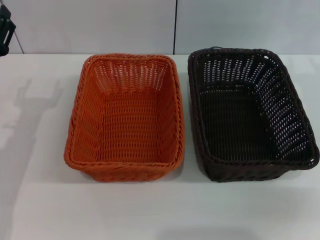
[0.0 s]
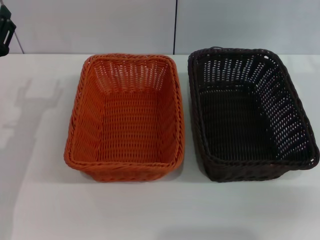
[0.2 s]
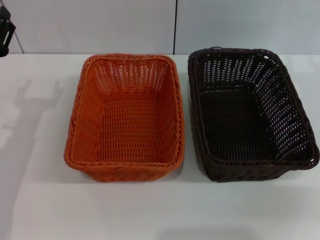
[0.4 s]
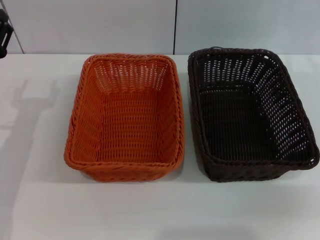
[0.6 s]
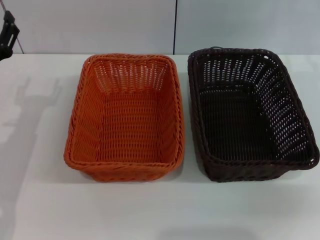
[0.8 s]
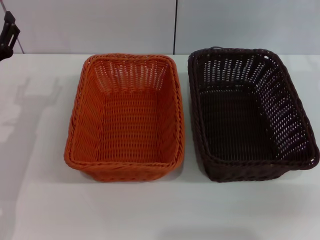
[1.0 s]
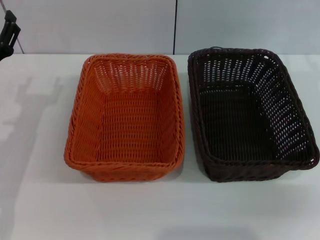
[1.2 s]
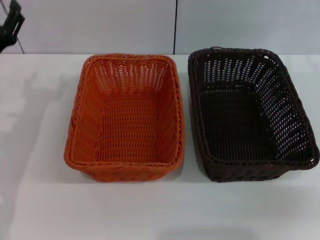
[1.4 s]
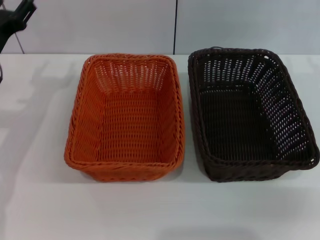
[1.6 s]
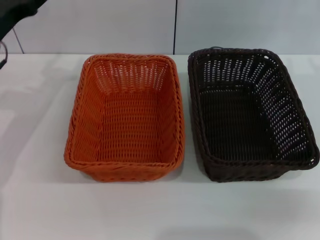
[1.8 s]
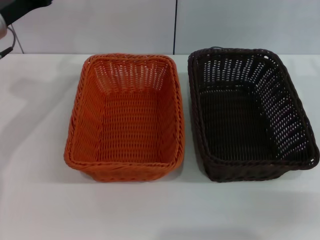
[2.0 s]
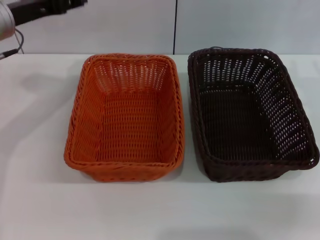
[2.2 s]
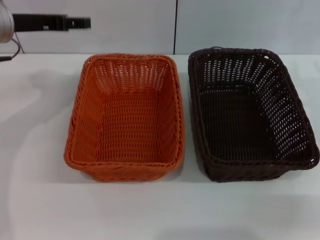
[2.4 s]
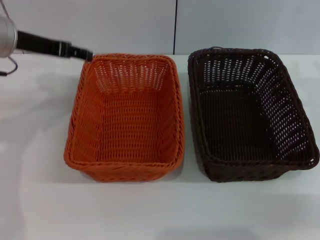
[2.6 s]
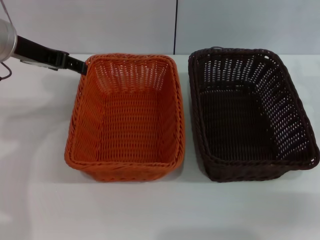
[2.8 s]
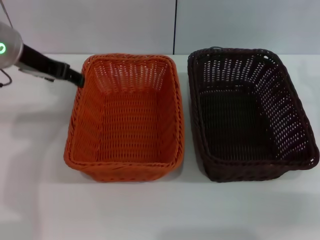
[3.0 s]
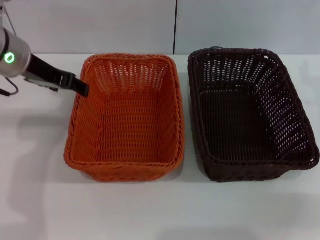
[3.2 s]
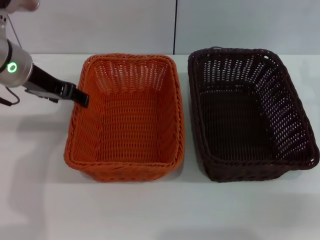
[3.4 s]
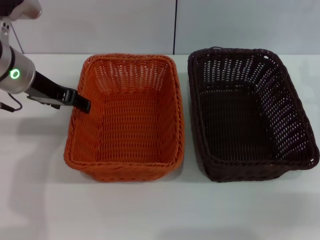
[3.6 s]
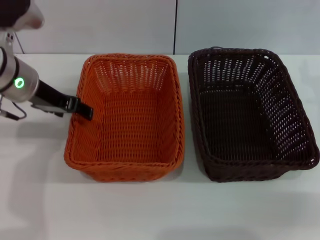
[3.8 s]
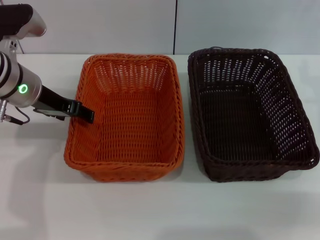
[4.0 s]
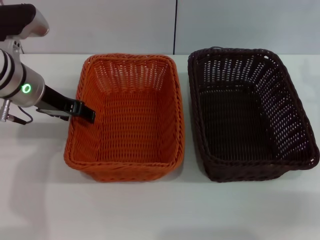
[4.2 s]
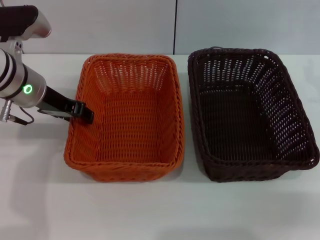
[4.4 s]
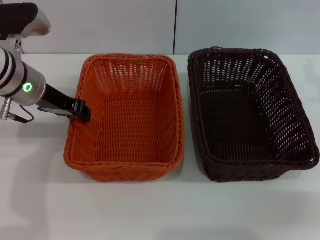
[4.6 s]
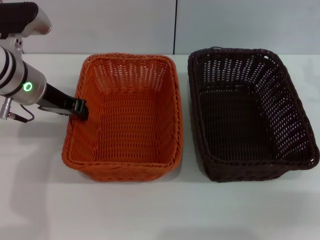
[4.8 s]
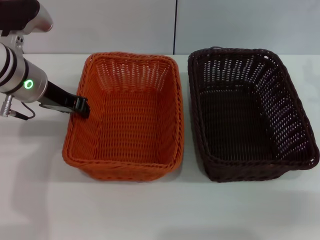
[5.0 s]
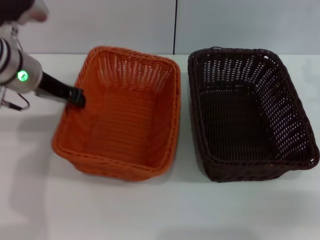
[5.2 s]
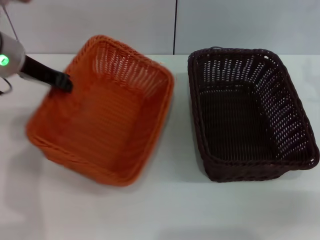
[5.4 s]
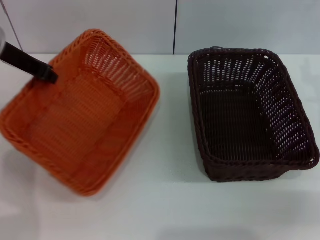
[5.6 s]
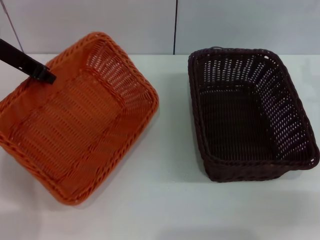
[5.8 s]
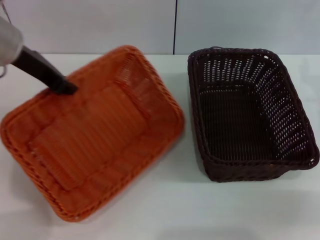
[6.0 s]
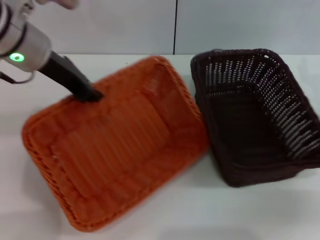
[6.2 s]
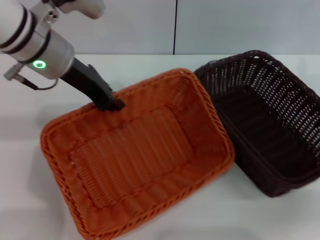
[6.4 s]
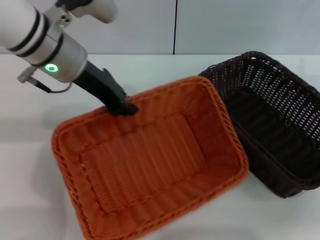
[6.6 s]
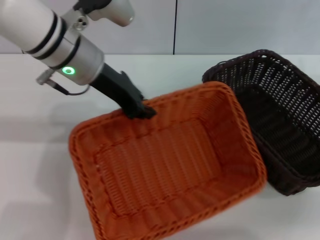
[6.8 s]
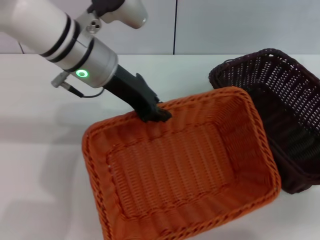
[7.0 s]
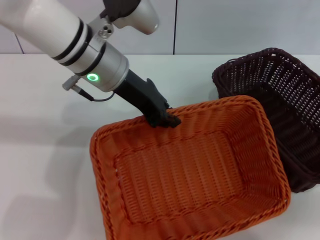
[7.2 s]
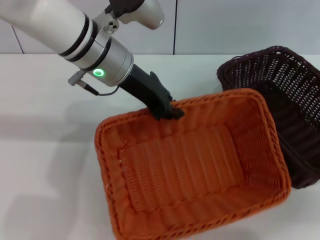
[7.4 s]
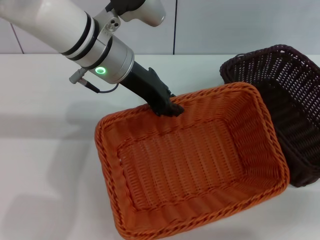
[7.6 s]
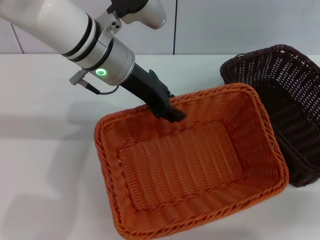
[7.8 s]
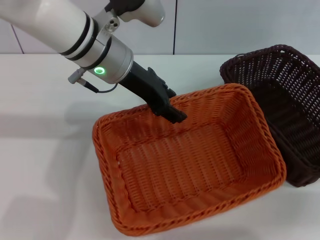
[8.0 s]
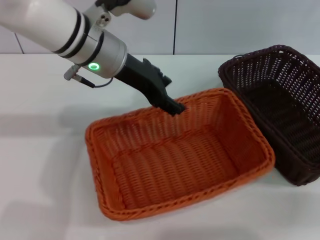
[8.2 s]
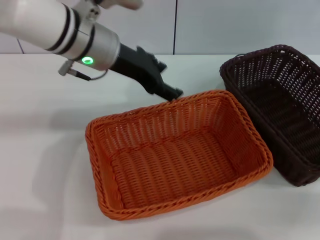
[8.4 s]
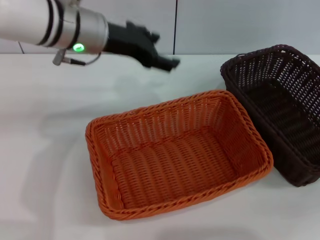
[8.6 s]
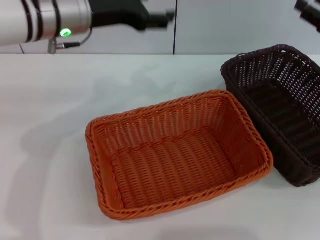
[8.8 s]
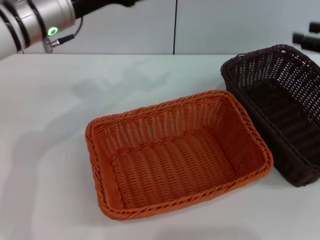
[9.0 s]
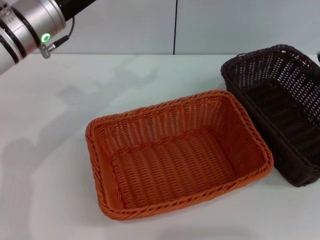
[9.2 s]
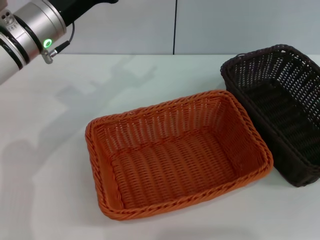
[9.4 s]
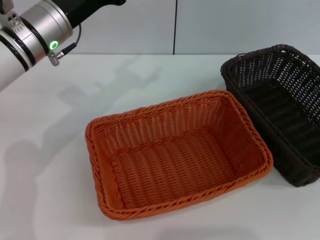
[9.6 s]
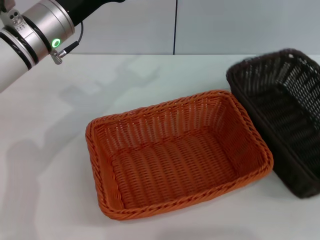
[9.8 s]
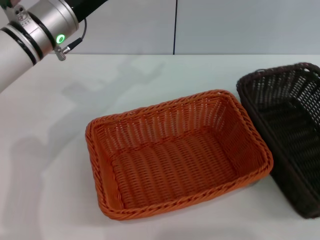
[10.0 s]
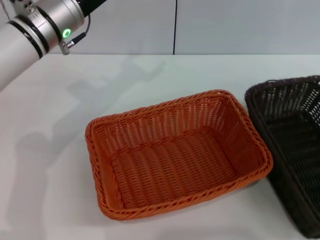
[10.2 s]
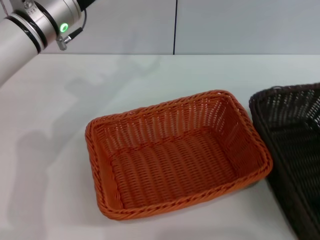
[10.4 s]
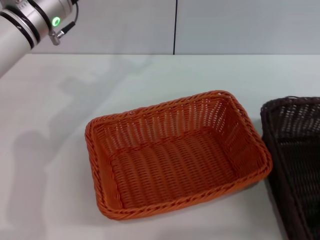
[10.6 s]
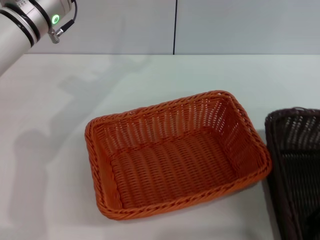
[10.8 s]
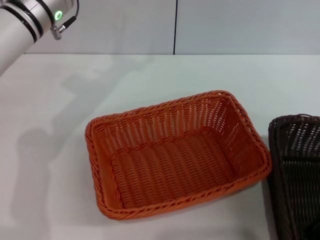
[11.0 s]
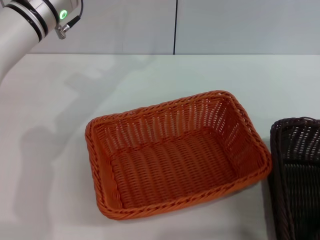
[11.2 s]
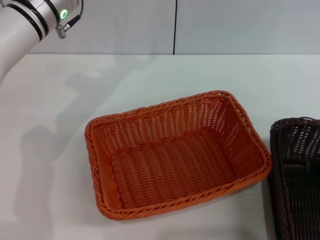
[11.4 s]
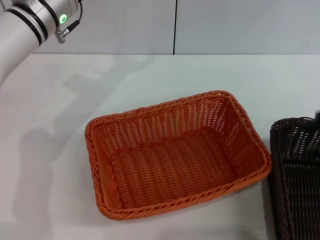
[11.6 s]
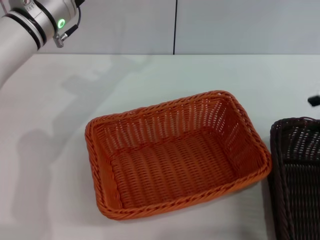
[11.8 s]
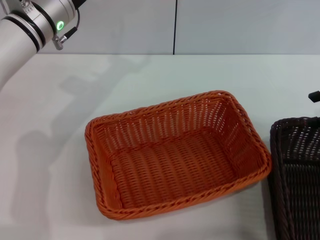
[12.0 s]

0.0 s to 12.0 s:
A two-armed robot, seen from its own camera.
Step, 0.0 to 5.4 s: Pick up the light basket with the left gripper.
Step, 5.8 to 8.2 s: Place the light basket in the center of view with the left gripper.
0.0 to 1.6 s: The left gripper heads forward, covering some 5 cm.
1.6 to 3.0 s: The left gripper moves upward and to the right, some 10 cm.
3.0 to 4.4 s: The left gripper goes approximately 5 cm downward.
4.4 to 6.0 s: The left gripper goes some 10 cm upward, and closes its fingers.
6.0 to 7.6 s: The left gripper goes approximately 15 cm to the right.
7.6 to 9.0 s: The right gripper moves upward and to the right, approximately 10 cm. The left gripper travels to the left by about 10 cm, and opens up.
9.0 to 10.4 s: The right gripper heads backward, covering about 10 cm.
10.4 to 12.0 s: The right gripper shifts some 5 cm forward.

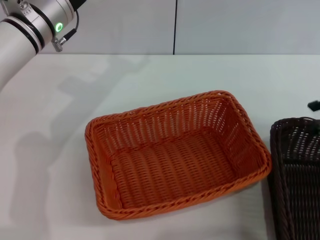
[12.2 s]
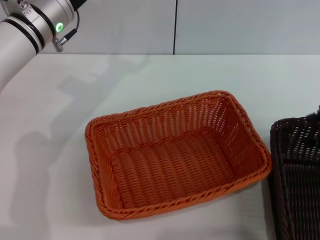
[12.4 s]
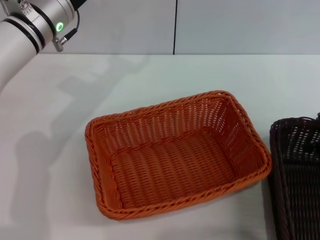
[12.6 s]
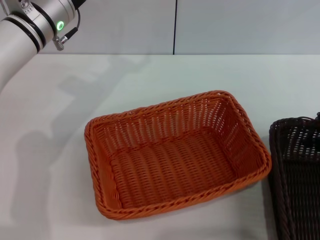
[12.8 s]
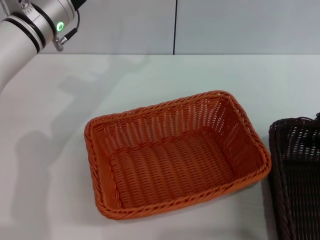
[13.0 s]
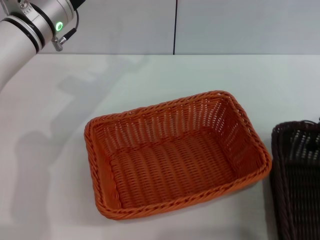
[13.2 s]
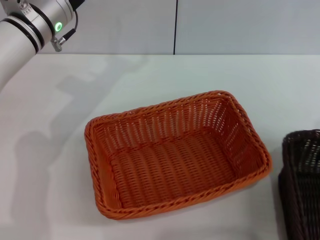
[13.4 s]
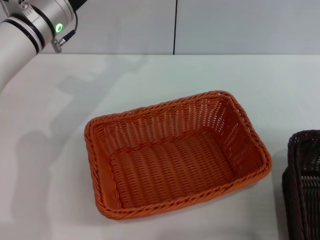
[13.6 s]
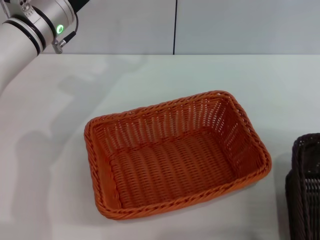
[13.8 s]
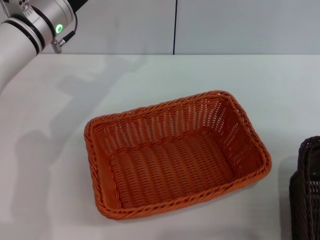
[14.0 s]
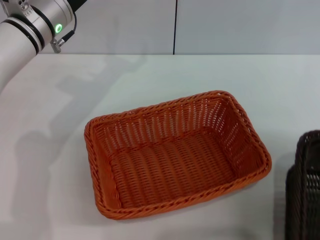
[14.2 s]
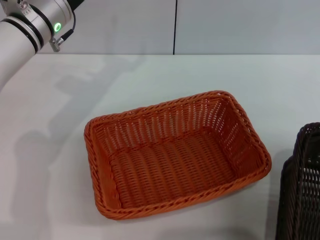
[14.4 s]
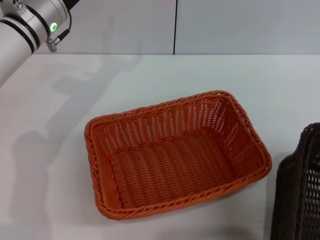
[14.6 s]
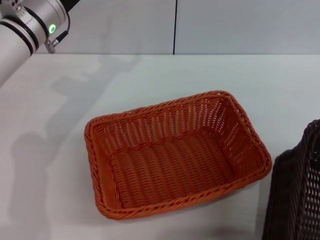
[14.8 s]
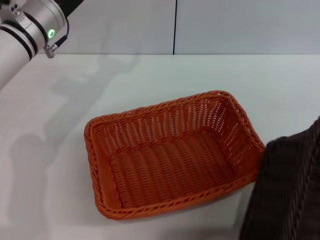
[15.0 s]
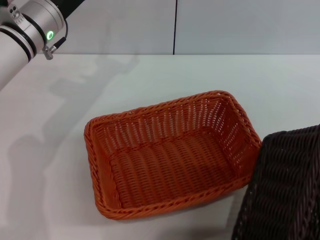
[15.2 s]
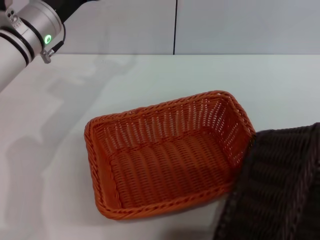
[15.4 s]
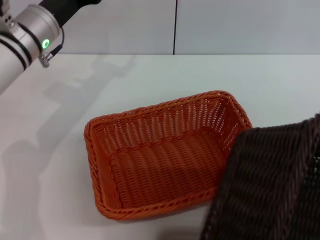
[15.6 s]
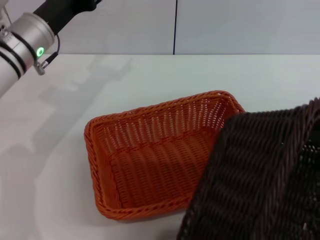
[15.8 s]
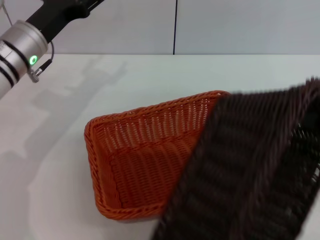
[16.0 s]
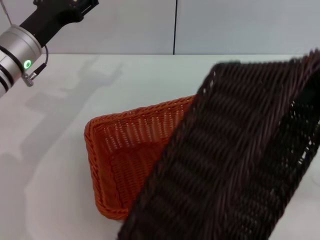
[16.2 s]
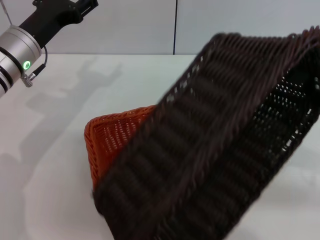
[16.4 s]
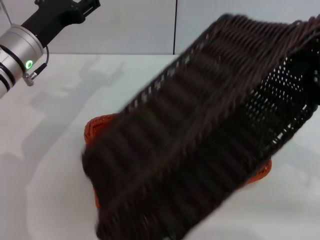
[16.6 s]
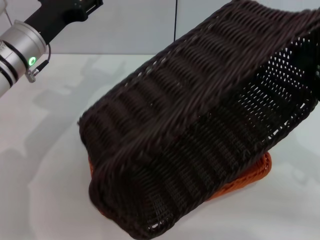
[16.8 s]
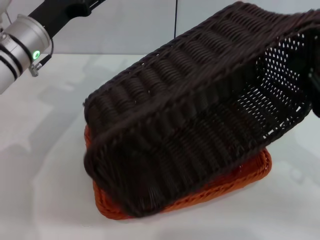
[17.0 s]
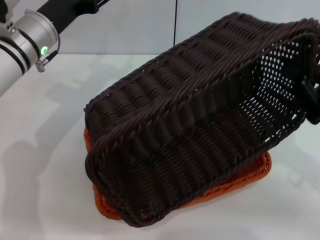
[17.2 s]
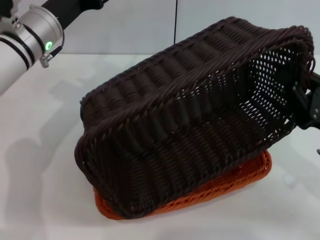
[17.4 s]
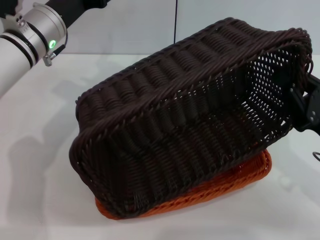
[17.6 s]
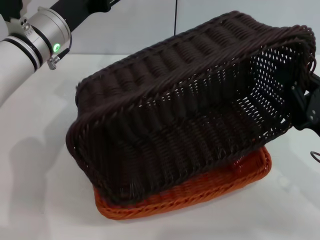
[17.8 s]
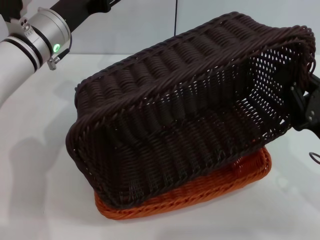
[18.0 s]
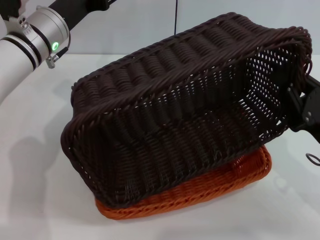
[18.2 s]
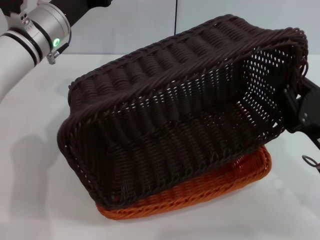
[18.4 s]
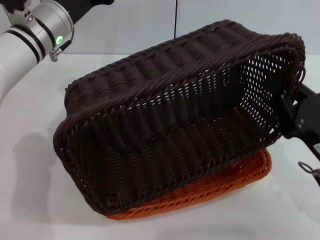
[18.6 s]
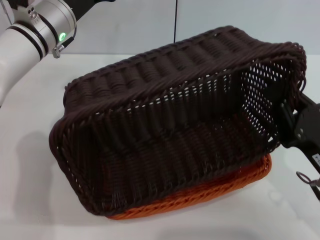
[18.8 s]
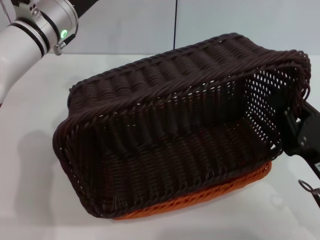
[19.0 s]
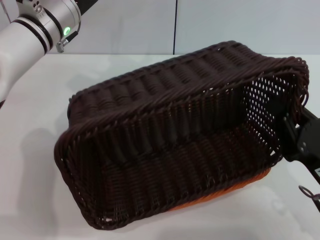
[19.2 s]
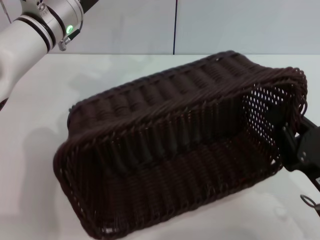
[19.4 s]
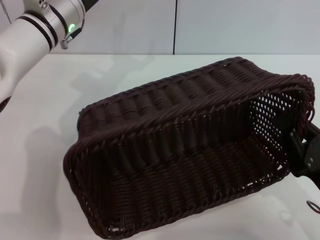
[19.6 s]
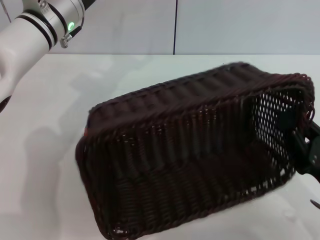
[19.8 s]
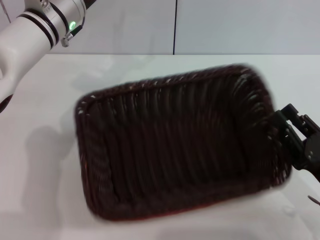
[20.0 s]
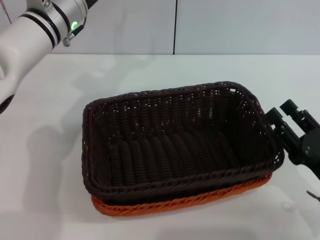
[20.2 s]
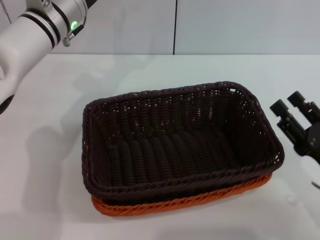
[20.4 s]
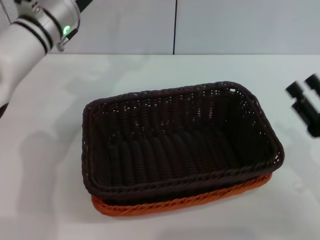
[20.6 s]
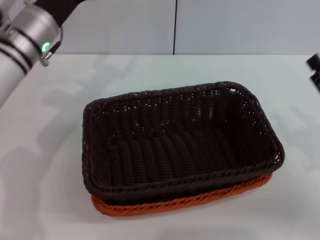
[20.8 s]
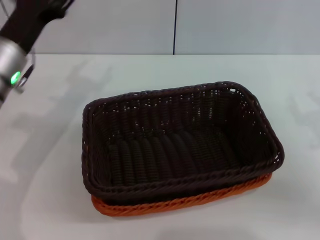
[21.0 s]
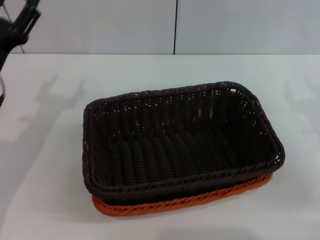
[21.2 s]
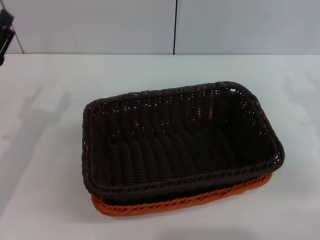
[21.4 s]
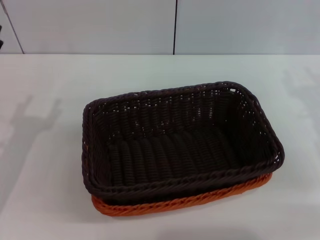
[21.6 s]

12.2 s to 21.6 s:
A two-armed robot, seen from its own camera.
Step, 14.0 to 20.0 s: Place the dark basket on the light basket with the right gripper.
12.2 to 13.8 s: The right gripper closes up.
13.8 to 15.4 s: The right gripper goes roughly 5 cm backward.
15.4 to 17.0 s: The right gripper shifts some 10 cm to the left and downward.
17.0 to 18.4 s: The right gripper ends up approximately 5 cm from where it was.
18.4 to 20.0 s: The right gripper moves some 5 cm.
20.0 to 21.6 s: The right gripper moves forward and upward, approximately 15 cm, and opens its fingers, while the left gripper goes roughly 25 cm backward, to the left and downward.

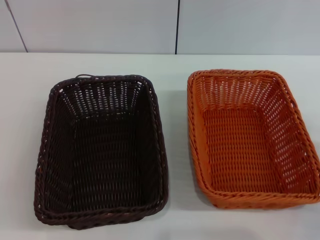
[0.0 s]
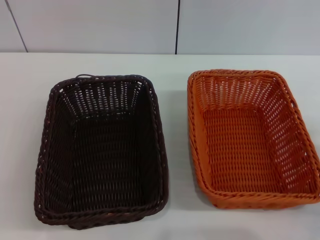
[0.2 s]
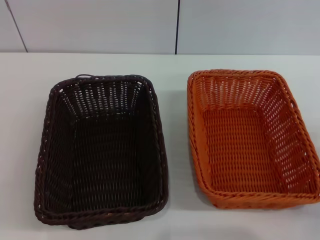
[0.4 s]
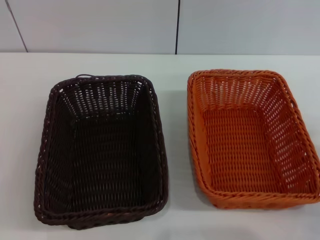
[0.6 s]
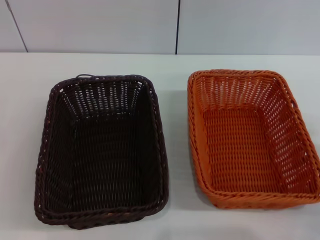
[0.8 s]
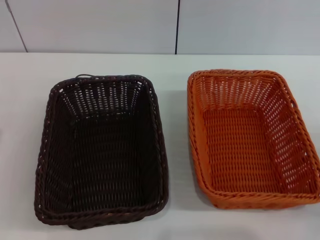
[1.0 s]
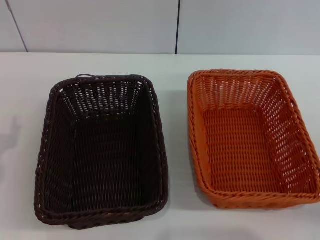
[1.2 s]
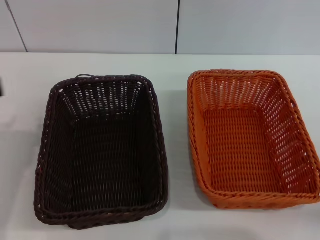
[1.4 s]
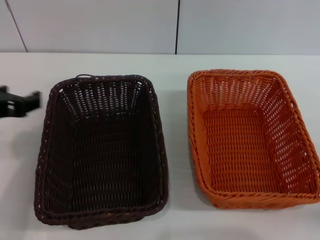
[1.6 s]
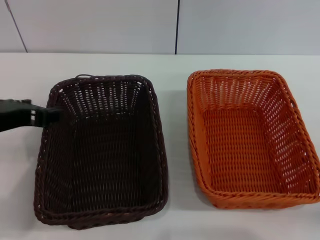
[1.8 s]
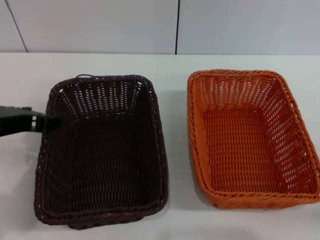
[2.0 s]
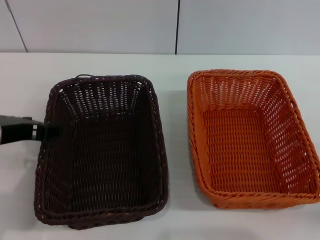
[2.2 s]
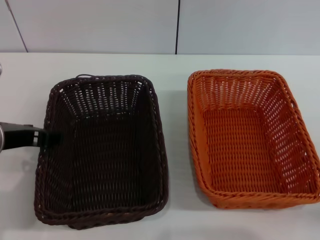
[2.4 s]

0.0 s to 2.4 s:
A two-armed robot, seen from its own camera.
1.2 to 2.4 s: The left gripper goes about 10 cm to the right and upward.
